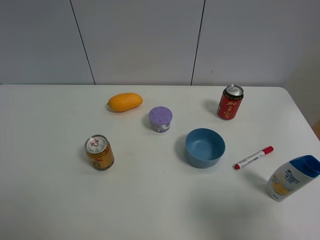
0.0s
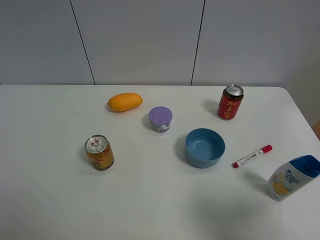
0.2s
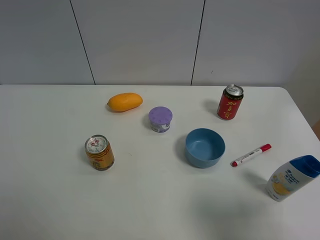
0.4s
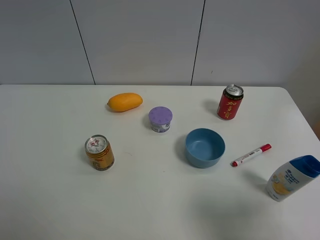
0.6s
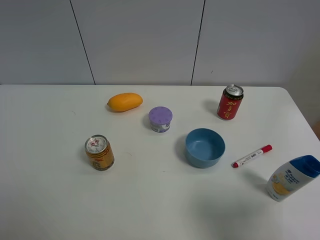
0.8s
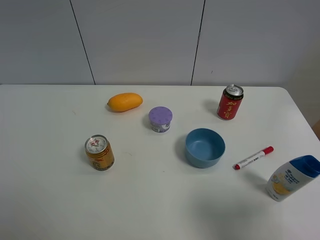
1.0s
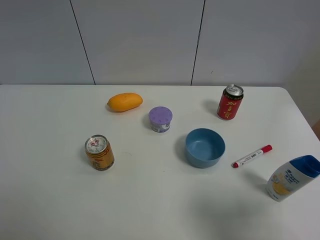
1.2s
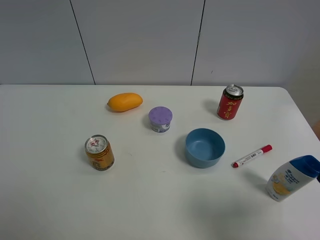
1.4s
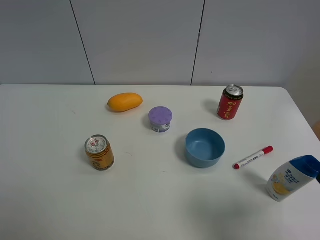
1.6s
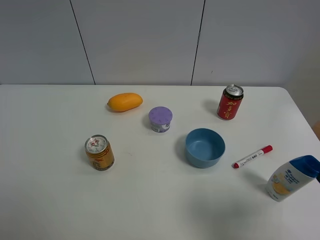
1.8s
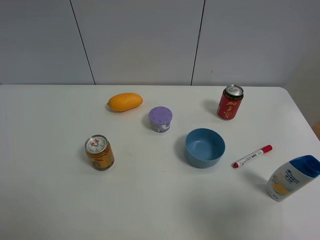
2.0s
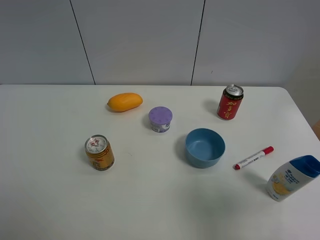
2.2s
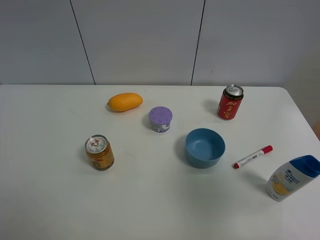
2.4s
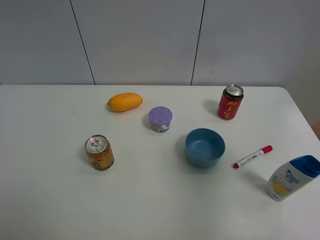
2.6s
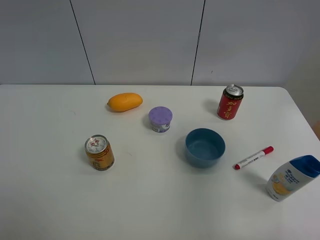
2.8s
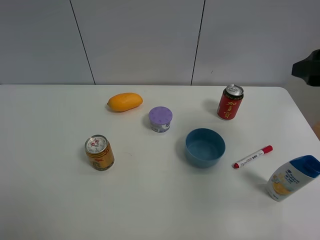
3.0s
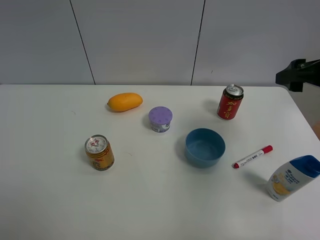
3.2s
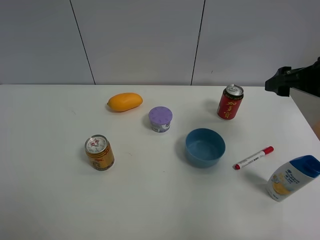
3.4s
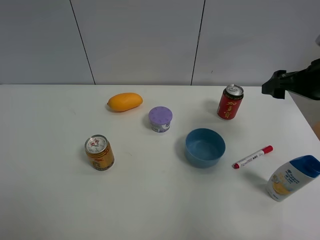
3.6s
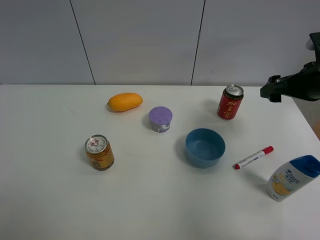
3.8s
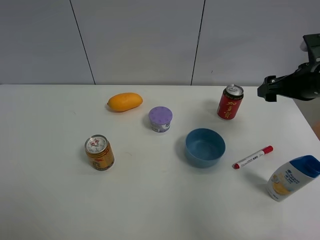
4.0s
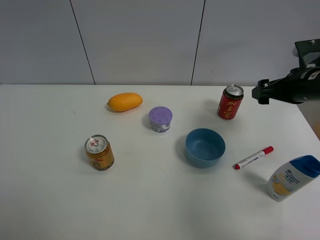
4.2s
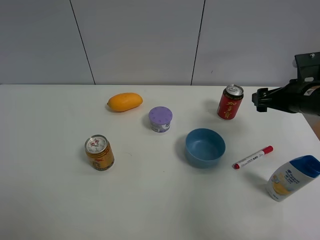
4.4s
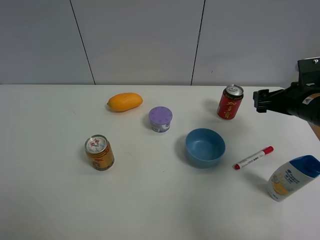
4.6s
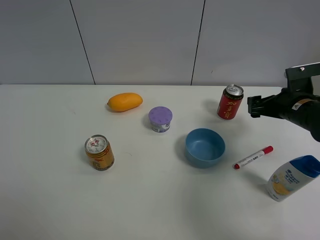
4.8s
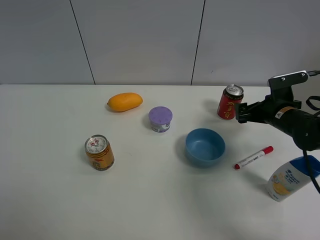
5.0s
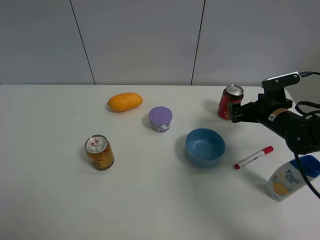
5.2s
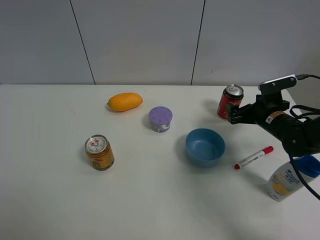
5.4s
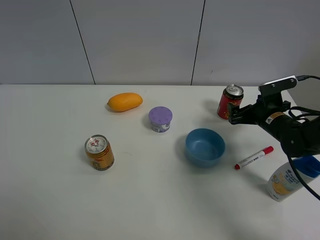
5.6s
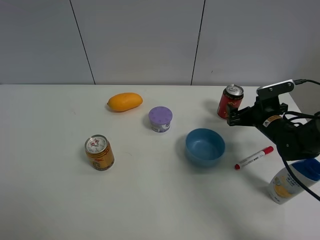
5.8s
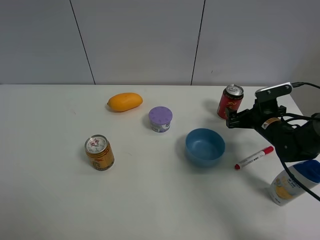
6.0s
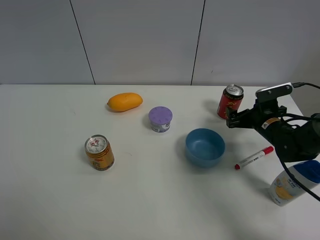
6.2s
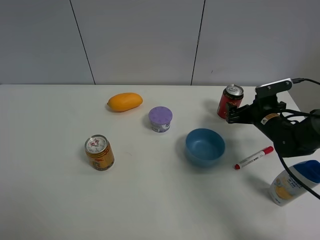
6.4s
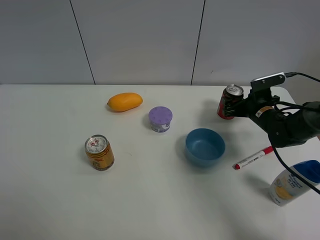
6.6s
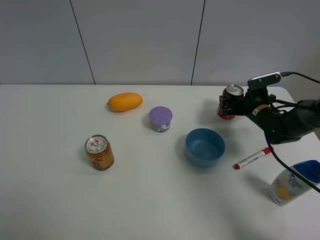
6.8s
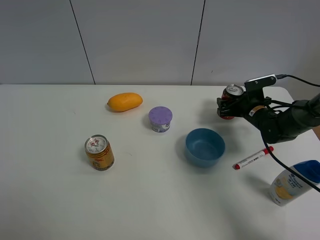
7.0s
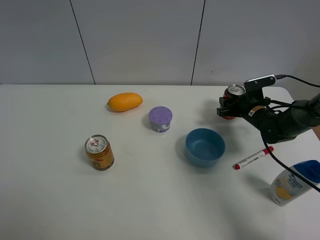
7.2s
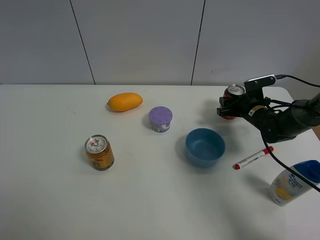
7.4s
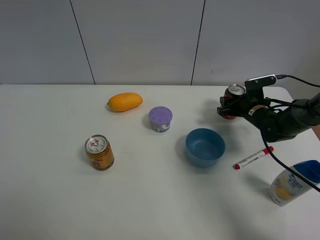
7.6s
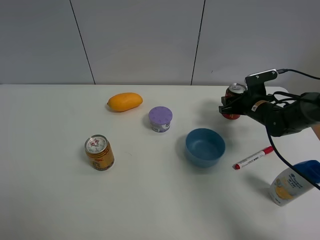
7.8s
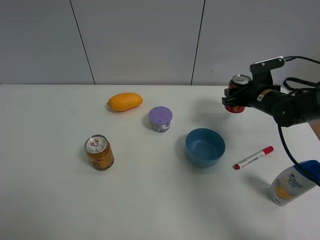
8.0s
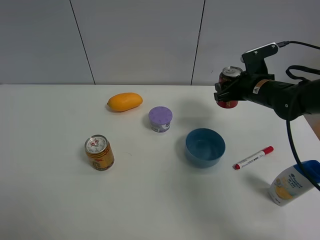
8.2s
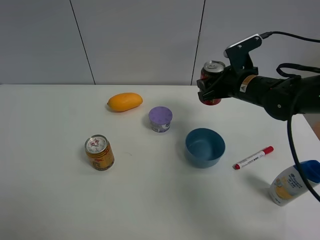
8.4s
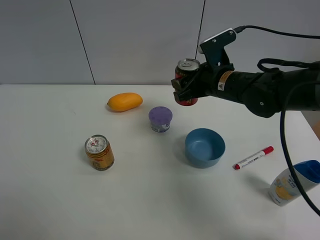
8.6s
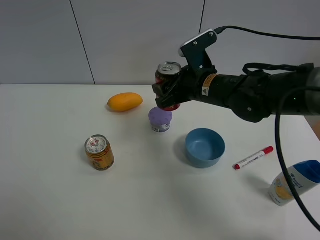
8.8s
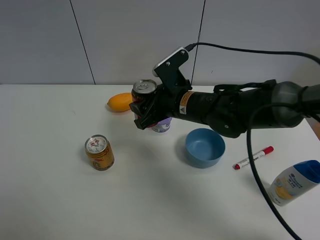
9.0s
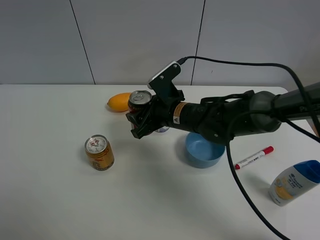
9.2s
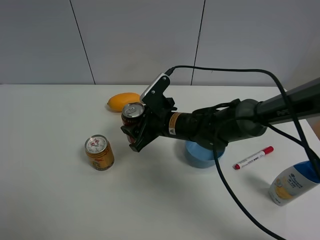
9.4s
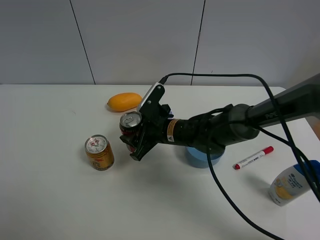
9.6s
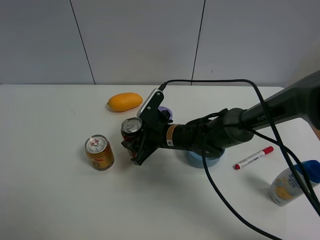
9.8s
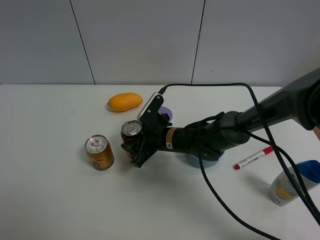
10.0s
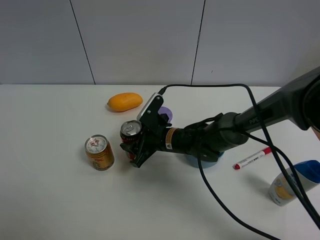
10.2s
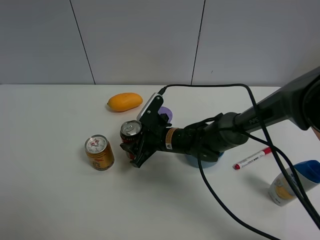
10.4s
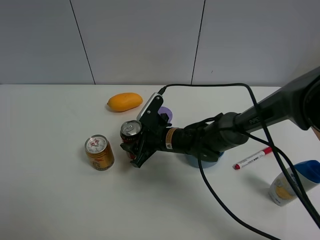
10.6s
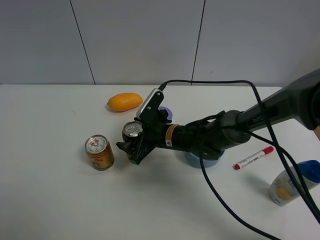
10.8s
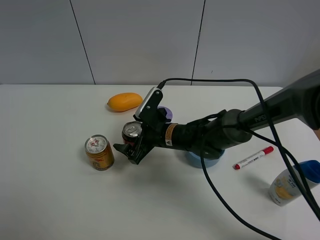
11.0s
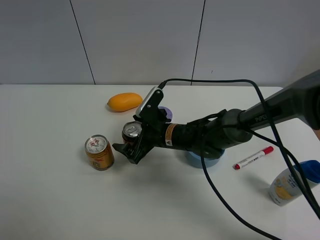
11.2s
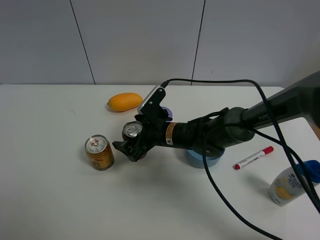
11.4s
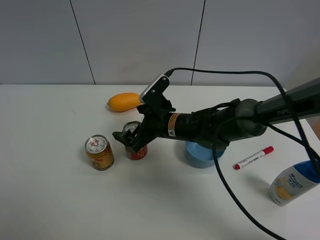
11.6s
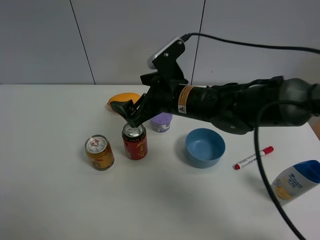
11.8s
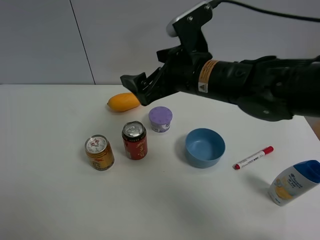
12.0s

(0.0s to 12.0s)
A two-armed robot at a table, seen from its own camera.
Task of the whole recording: the gripper move the object.
Step, 0.0s - 7.4s: Grasp the Jia Duo Bao with the right gripper.
Step, 7.6s - 11.8s: Place the Jia Duo Bao on the table with the right gripper.
0.0s - 1.6s: The two grippers keep their place.
1.6s - 3.0s: The right gripper is displaced forward by some 20 cm.
3.0s - 4.4s: The right gripper moves downward and forward, some 15 cm.
4.4s - 6.0s: The right gripper travels downward by about 10 cm.
6.0s - 7.6s: The right gripper heads forward, covering approximately 5 cm, and closes up.
7.6s - 9.0s: The right gripper heads to the left, upward and backward, covering some 25 cm.
9.0s - 10.4s: The right gripper is displaced downward by approximately 10 cm.
10.4s - 12.0s: The right gripper travels upward by about 20 cm, and opens its fingers.

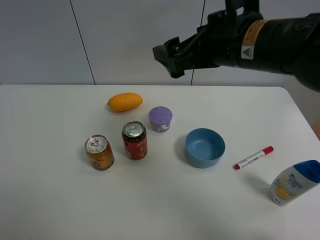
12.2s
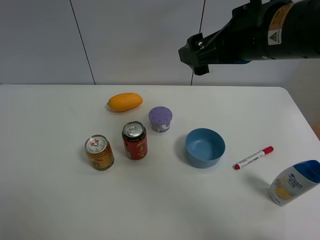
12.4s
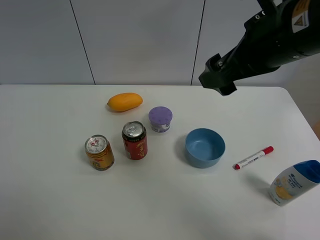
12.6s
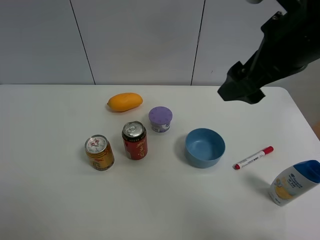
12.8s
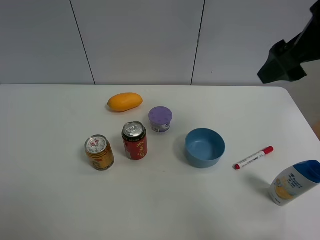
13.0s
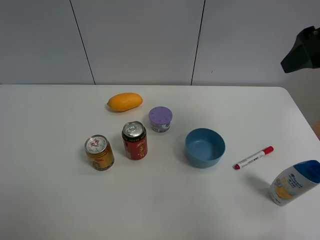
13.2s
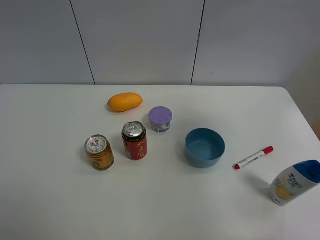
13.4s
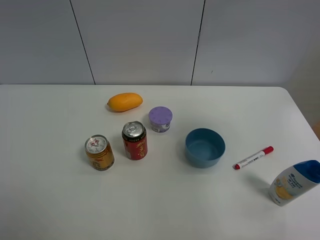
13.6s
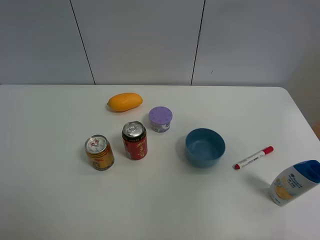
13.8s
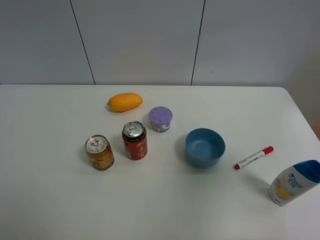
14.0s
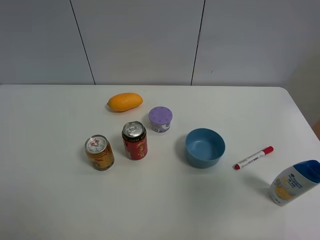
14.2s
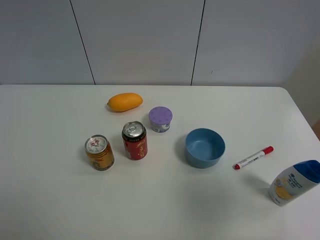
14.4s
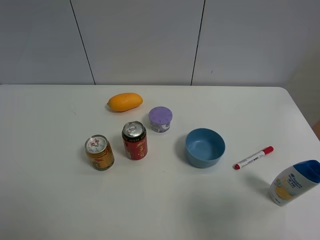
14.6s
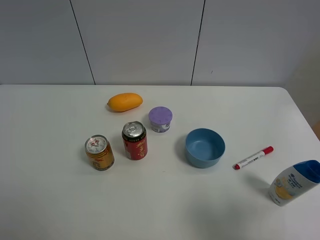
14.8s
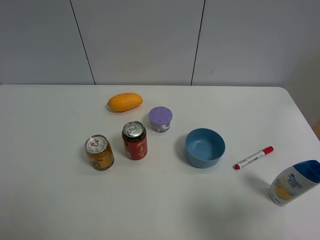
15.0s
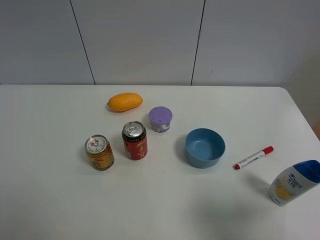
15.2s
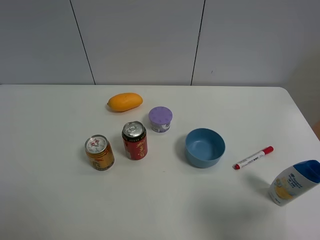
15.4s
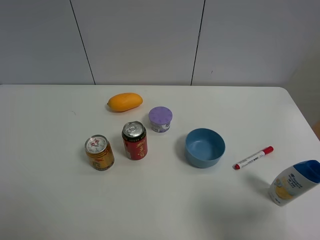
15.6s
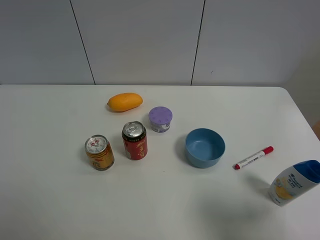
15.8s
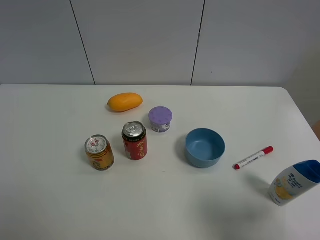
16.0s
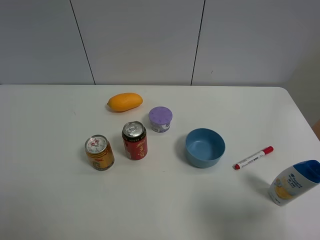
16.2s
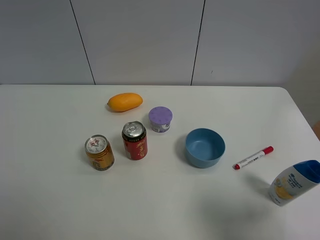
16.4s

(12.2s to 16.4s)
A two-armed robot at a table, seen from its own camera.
Task of the whole recording: the gripper move the object.
12.2s - 13.6s: The right gripper shifts about 25 cm to the right and upward.
13.6s - 15.0s: The right gripper heads backward and downward, covering roughly 25 cm.

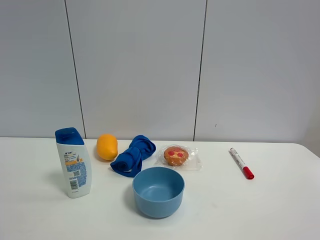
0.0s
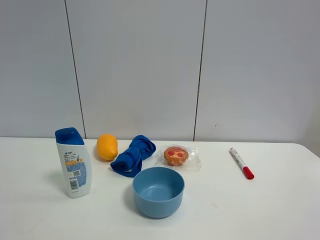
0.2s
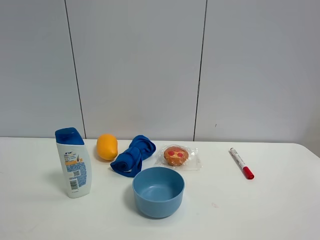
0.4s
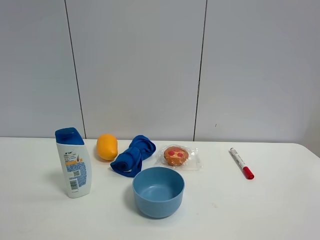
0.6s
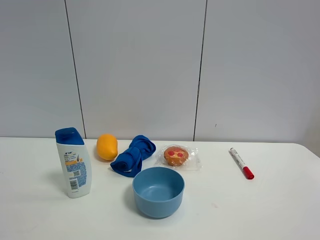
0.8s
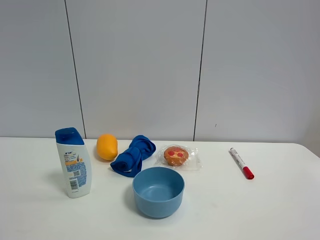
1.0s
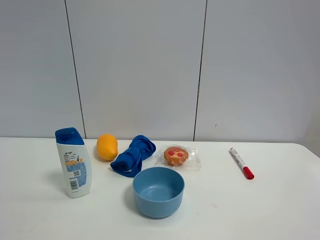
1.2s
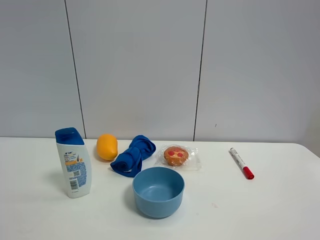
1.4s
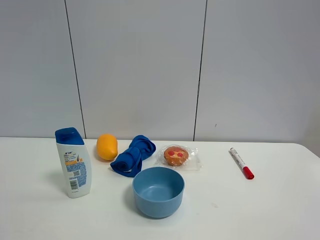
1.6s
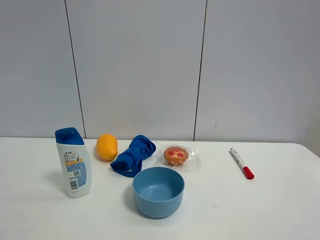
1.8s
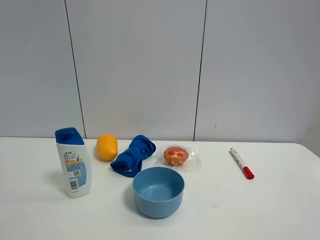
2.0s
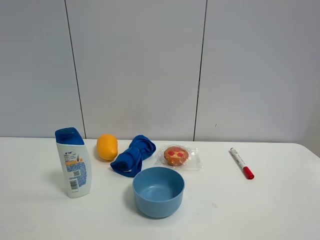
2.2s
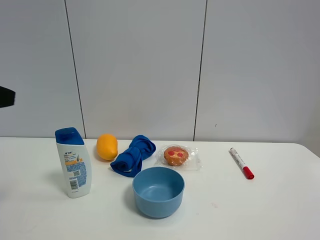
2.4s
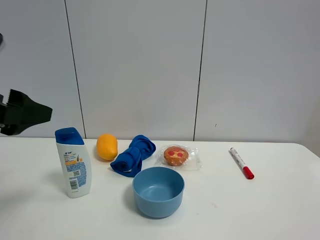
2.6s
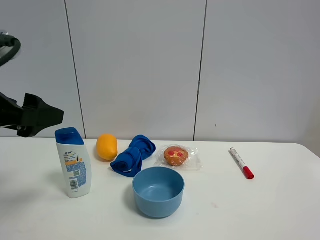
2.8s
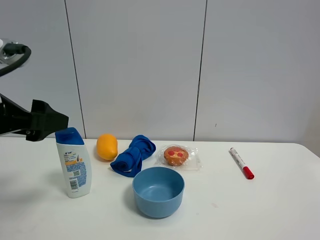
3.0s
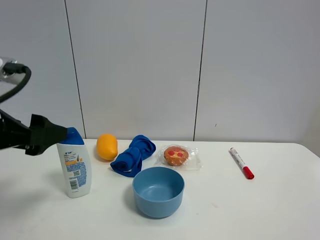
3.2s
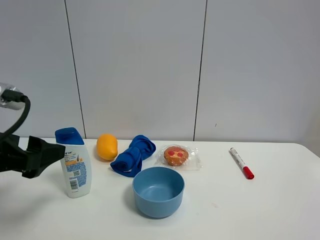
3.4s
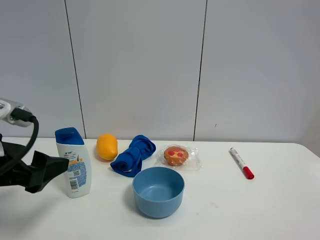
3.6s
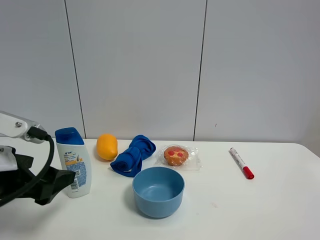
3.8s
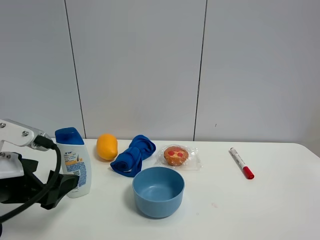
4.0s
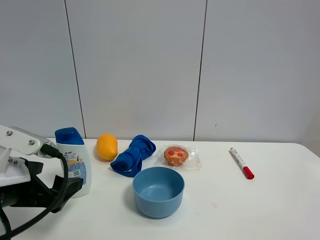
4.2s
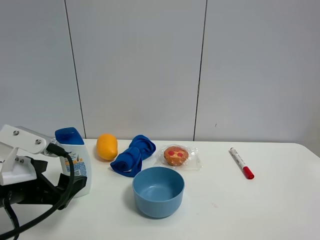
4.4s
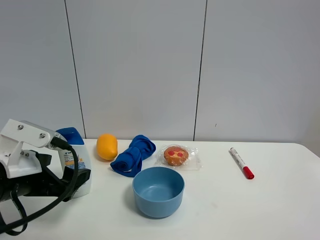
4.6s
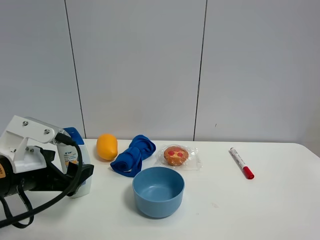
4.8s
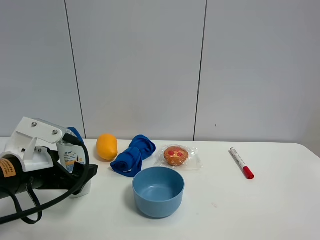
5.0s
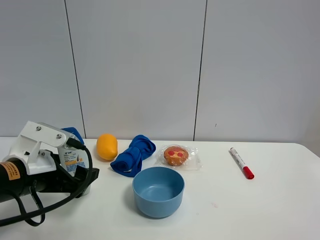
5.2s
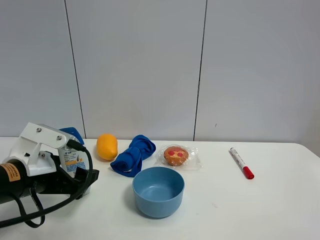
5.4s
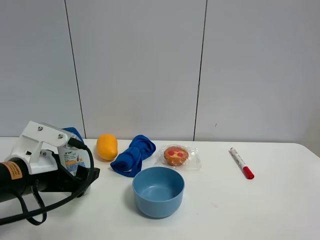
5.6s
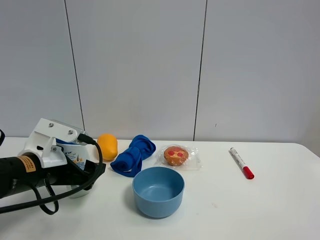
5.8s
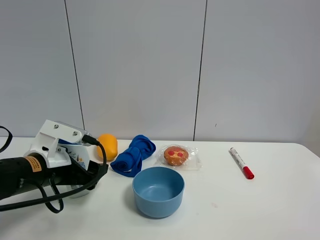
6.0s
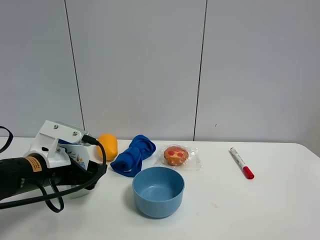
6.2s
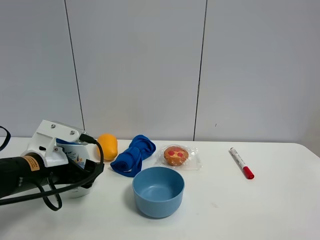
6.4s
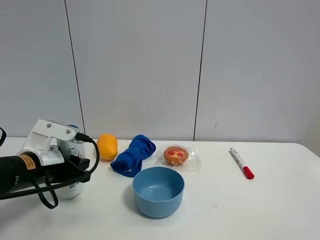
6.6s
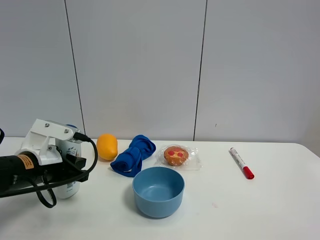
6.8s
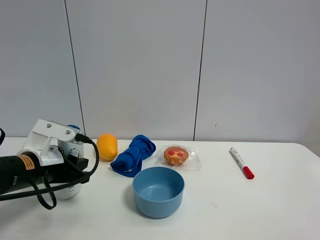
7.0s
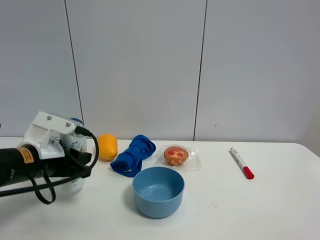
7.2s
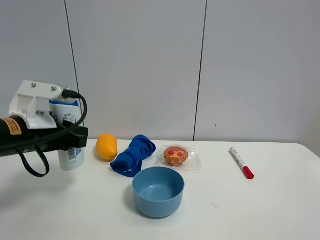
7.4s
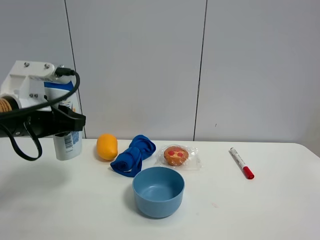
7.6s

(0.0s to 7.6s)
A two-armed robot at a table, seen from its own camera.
Task of the whole recording: the gripper move the object.
Step, 0.0s - 6.8s: Grasp the shampoo with the left gripper.
1.6s - 3.0s: The left gripper moves forward, downward and to the right, some 20 cm.
3.0s - 4.6s: The left gripper travels downward by approximately 10 cm.
4.6s - 6.0s: The left gripper goes approximately 5 cm forward.
6.0s - 7.6s: The left gripper travels upward by roughly 10 cm, and closes up.
